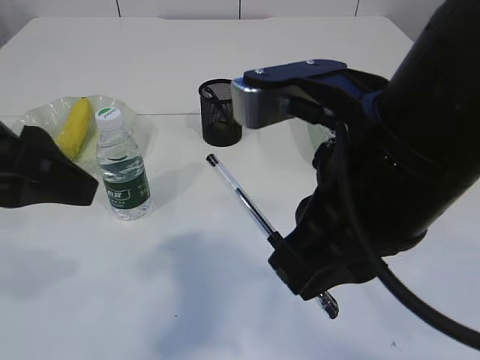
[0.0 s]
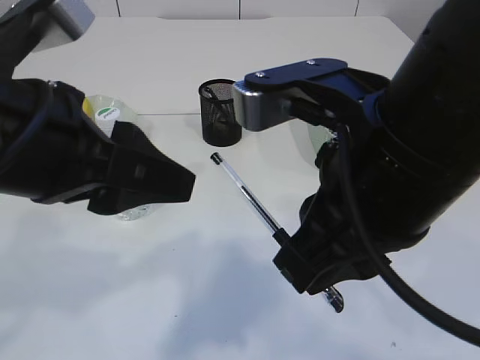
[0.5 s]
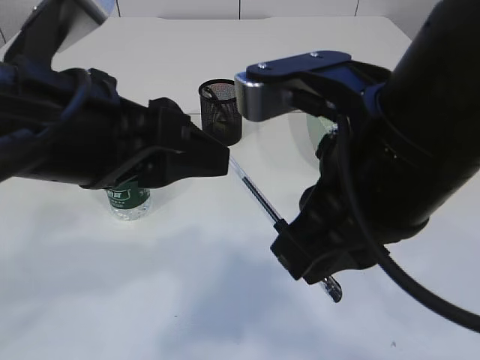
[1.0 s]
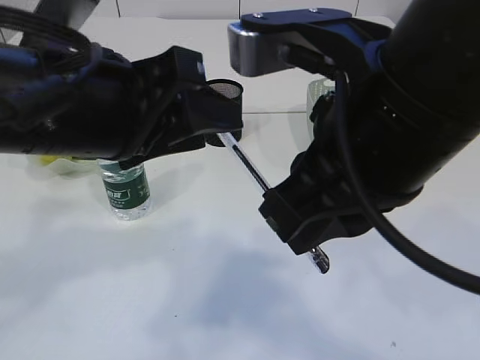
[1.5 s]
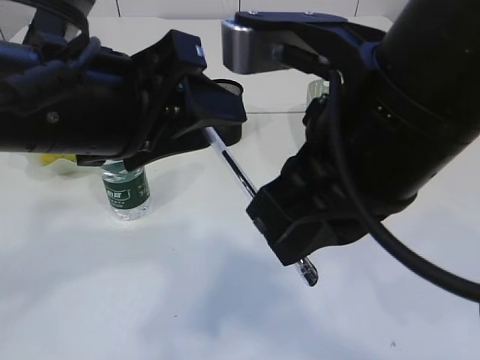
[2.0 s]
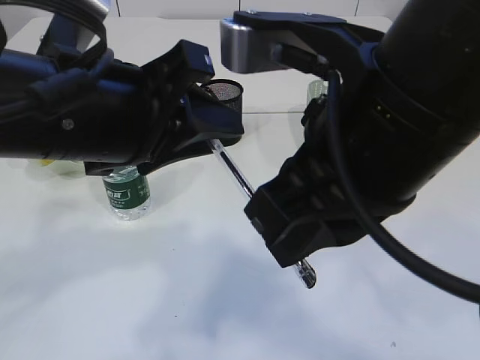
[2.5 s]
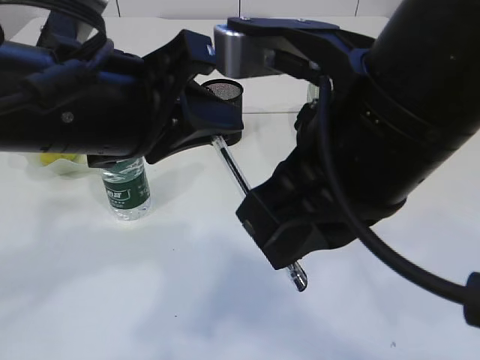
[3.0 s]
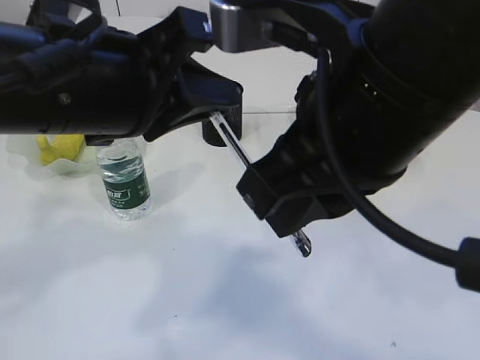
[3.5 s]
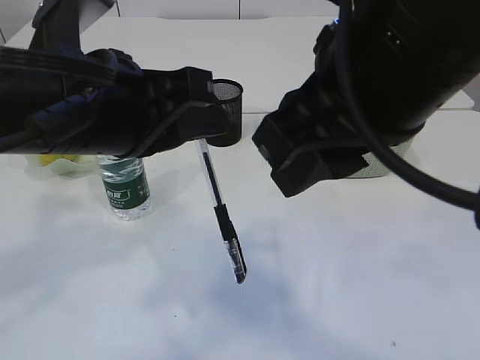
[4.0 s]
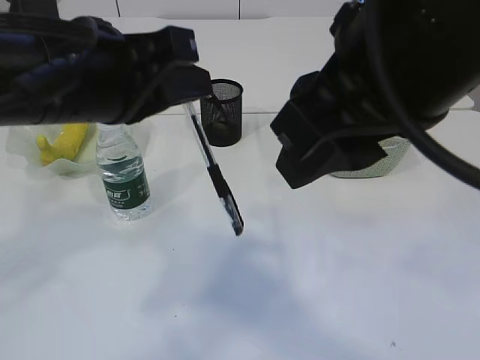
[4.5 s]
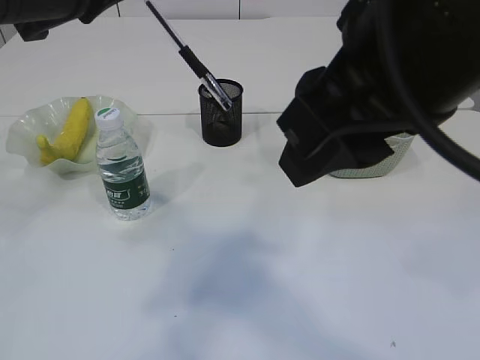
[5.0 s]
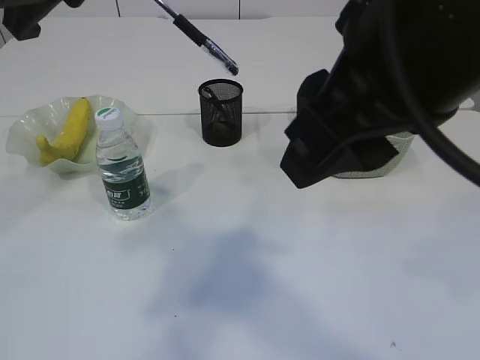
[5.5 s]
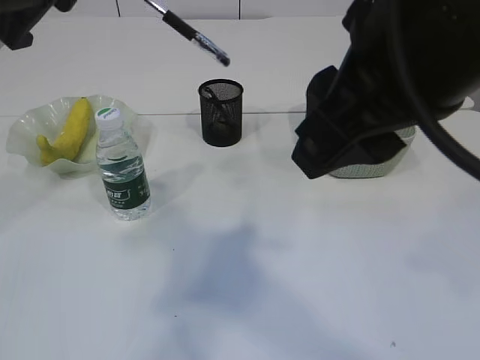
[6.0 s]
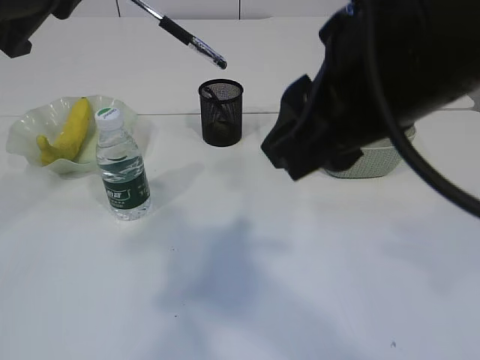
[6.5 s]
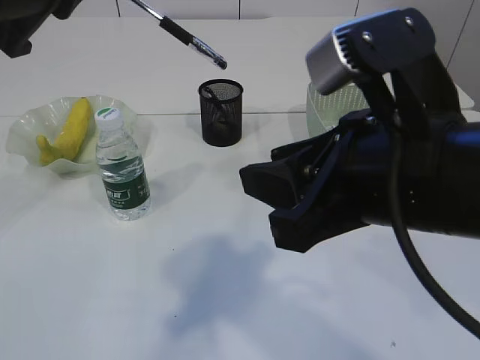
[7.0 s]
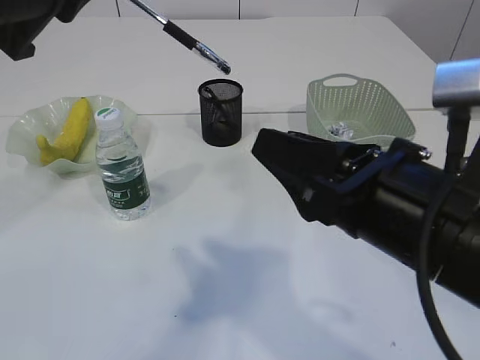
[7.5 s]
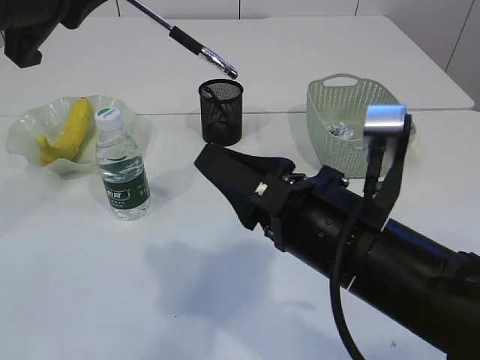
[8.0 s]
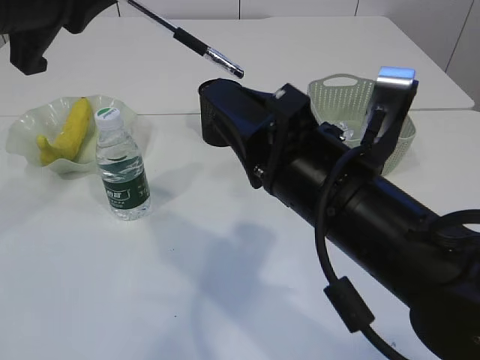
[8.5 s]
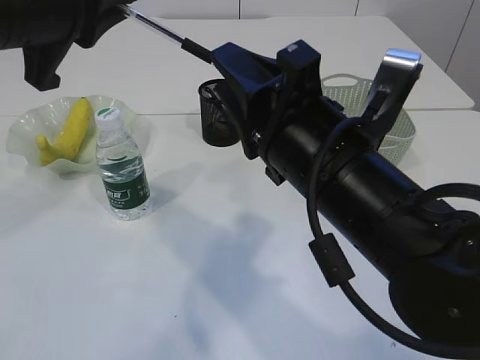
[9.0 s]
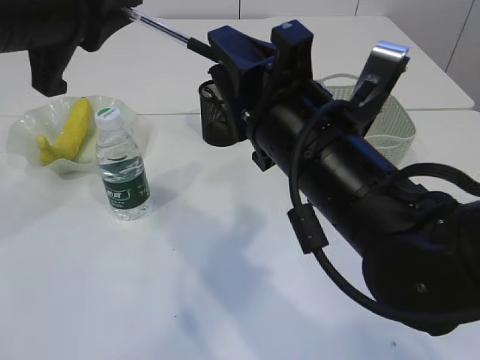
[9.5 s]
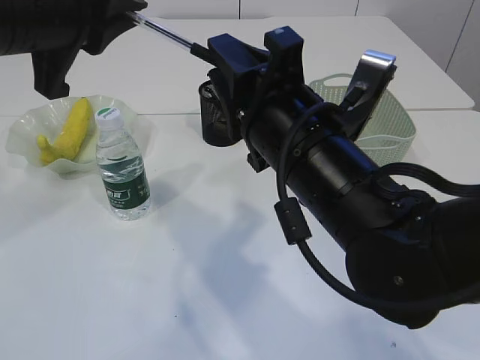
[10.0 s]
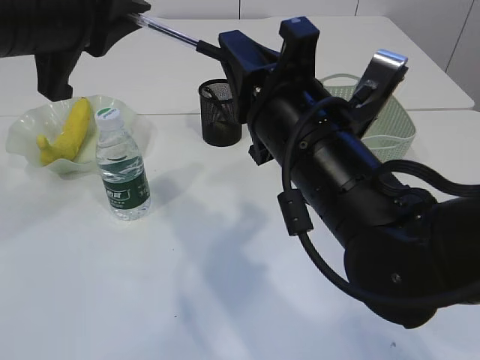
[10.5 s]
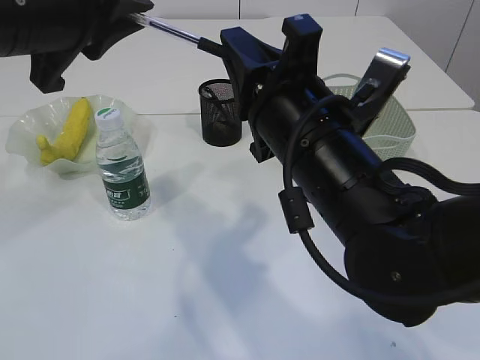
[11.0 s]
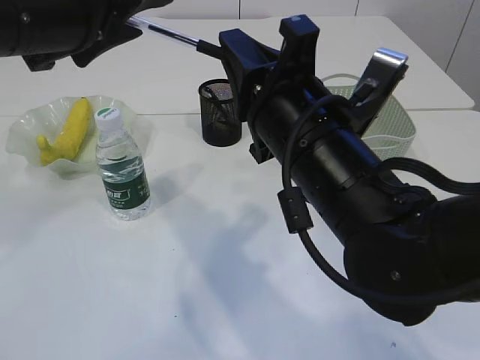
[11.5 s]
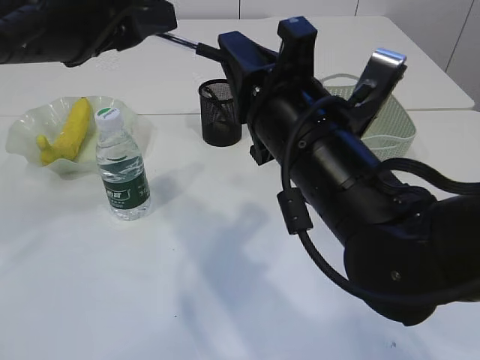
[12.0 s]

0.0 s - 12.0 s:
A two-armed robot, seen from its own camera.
Step, 0.0 s - 3.5 s: transfer the pen to the left arm.
0.0 s - 2.0 s: The left gripper is displaced to the right by approximately 10 cm.
2.0 s - 4.0 s: The left gripper closes up.
4.0 s - 6.0 s: The left gripper moves upward and to the left, about 10 cm.
6.0 s - 8.0 s: The right gripper goes about 20 cm downward.
8.0 s - 10.0 s: The right gripper shifts some 5 cm forward.
10.0 s - 12.0 s: The left gripper opens its fingers; the right gripper closes its fingers.

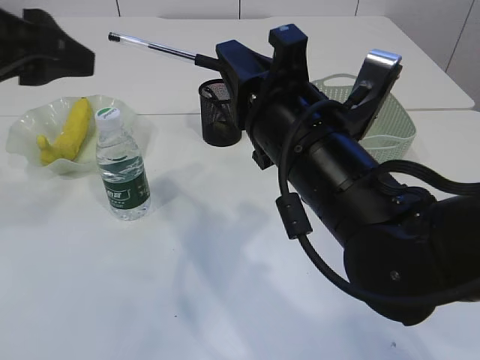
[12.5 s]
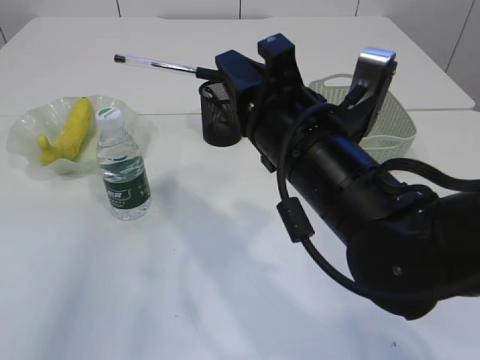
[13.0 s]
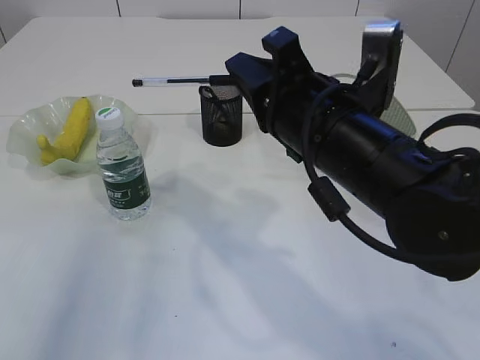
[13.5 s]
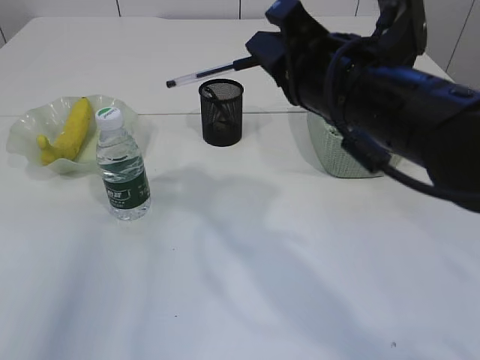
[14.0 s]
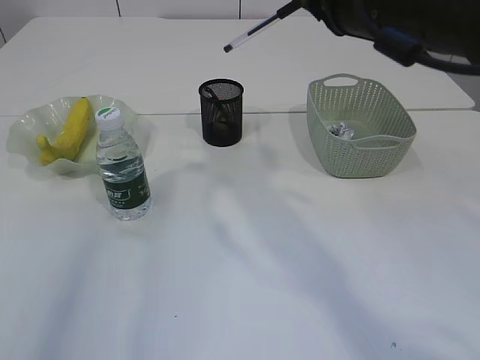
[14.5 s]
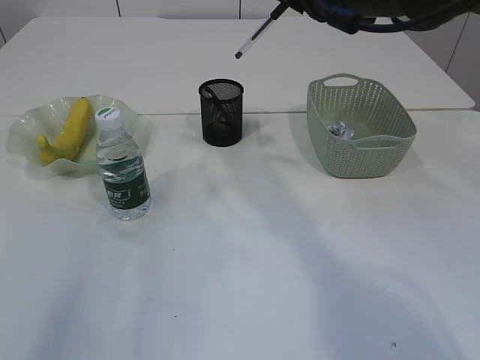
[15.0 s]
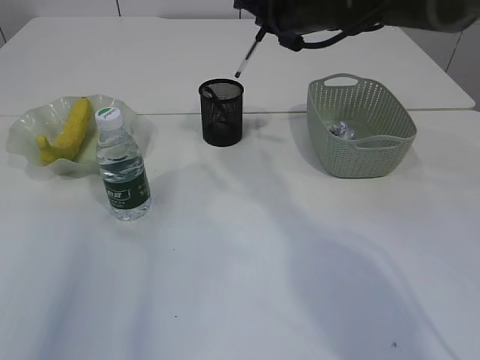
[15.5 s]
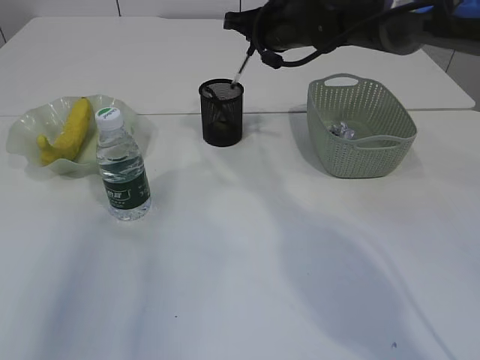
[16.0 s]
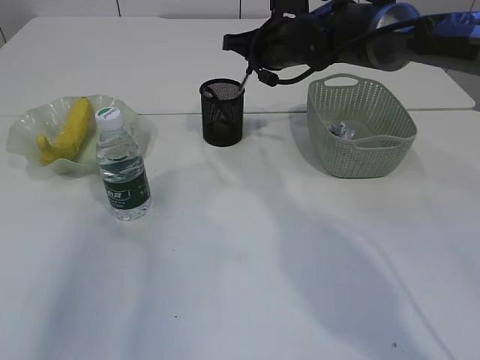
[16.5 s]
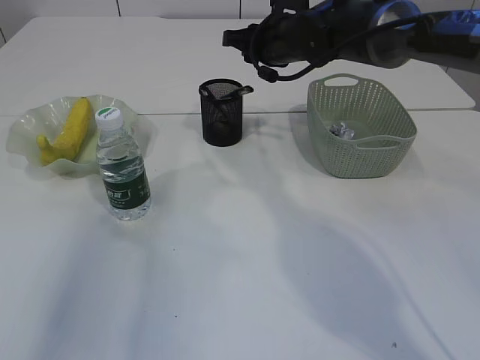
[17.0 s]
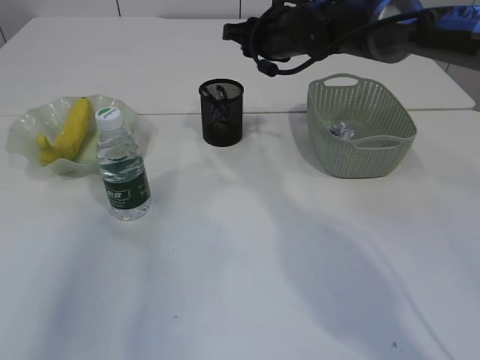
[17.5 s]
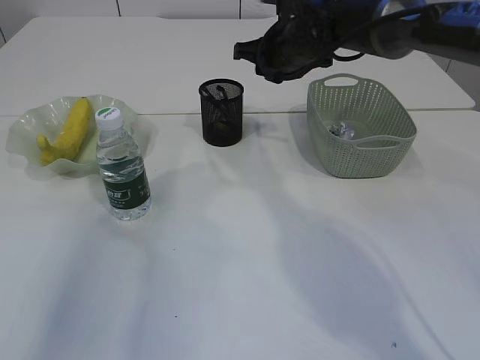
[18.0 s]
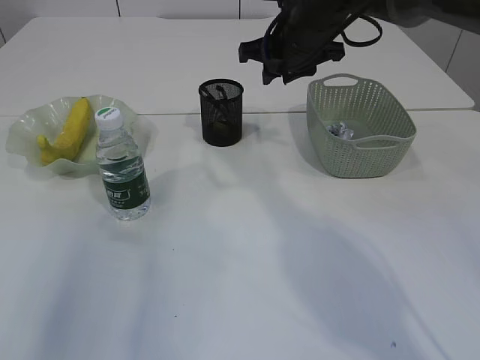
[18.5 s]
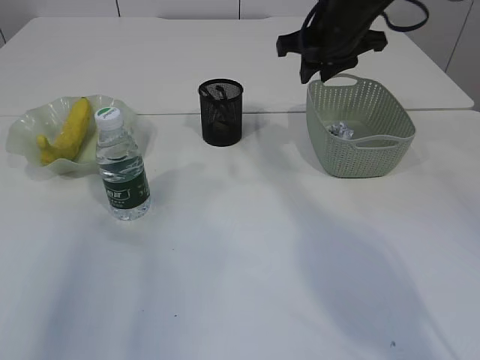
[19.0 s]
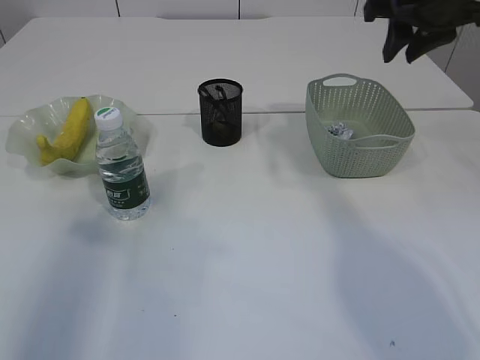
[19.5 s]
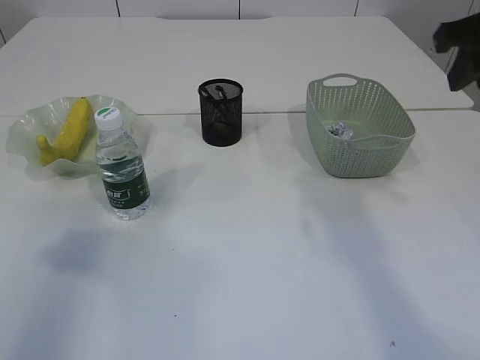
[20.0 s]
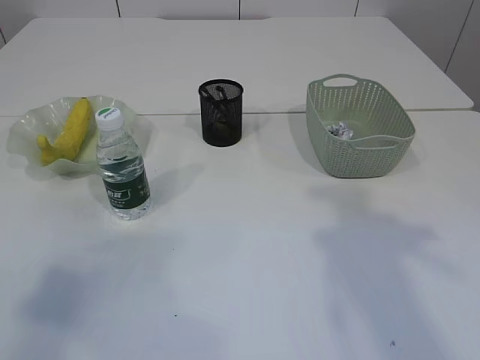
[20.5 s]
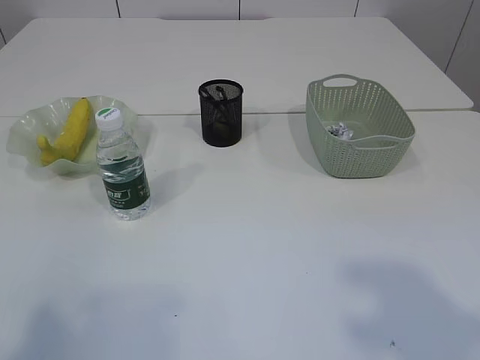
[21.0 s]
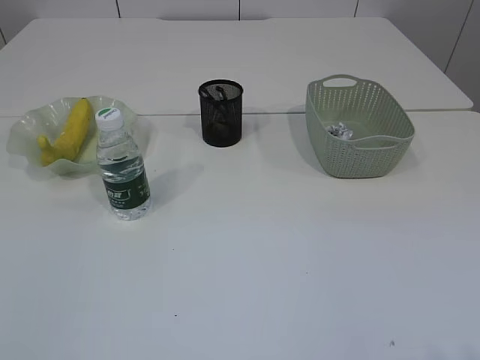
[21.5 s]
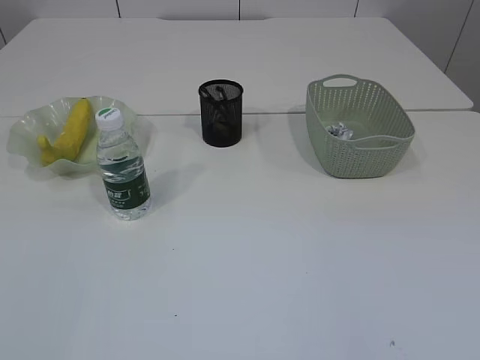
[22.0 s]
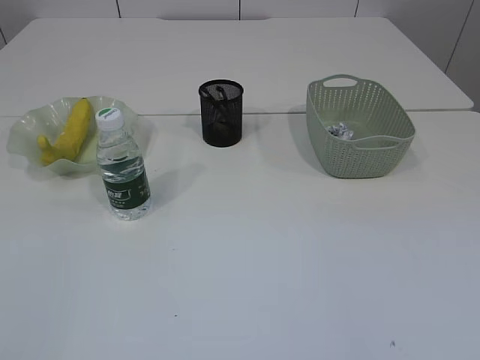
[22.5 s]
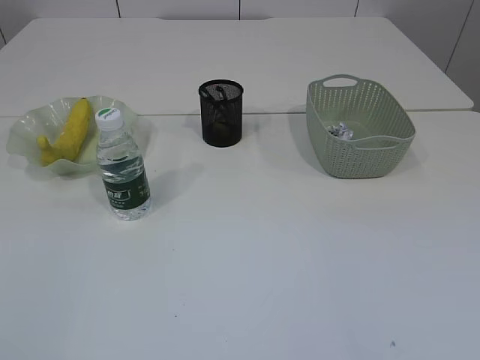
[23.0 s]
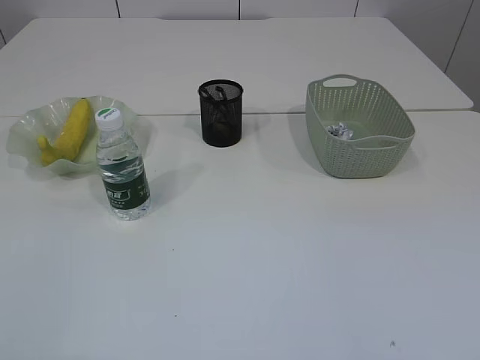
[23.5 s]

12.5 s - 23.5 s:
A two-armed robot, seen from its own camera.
Step, 12.5 s - 17.0 s: Place the pen into the pen holder.
12.5 s - 14.5 s: The right gripper is displaced upward, to the right and forward by approximately 15 cm. Meanwhile the left gripper is displaced to the left by roughly 5 cm.
14.5 s - 16.0 s: The right gripper travels forward and downward by about 20 cm.
16.0 s - 18.0 s: The right gripper opens its fingers.
18.0 s - 20.0 s: The left gripper goes some 5 cm to the left, while the right gripper moves backward, to the right and upward, some 25 cm.
20.0 s - 21.5 s: The right gripper shifts about 35 cm backward. The left gripper moves backward, some 20 cm.

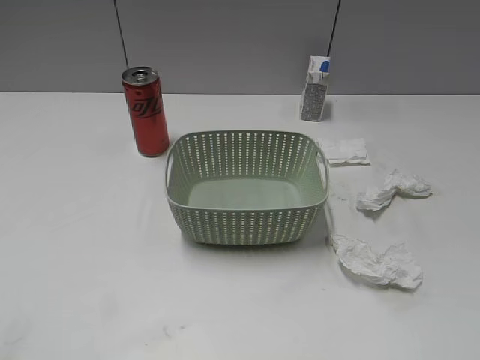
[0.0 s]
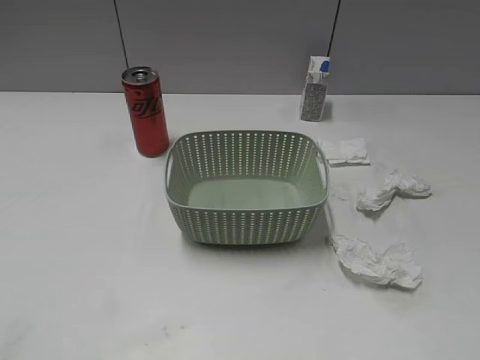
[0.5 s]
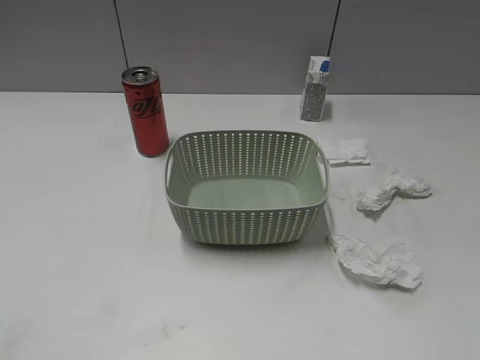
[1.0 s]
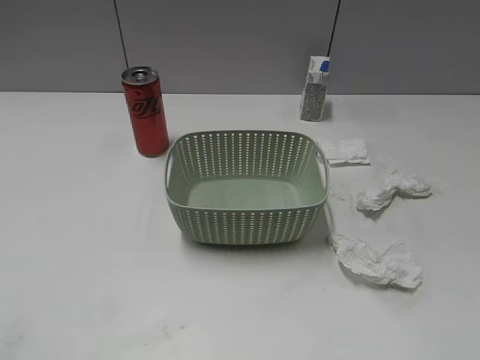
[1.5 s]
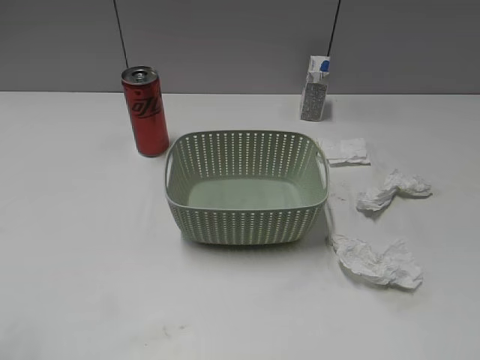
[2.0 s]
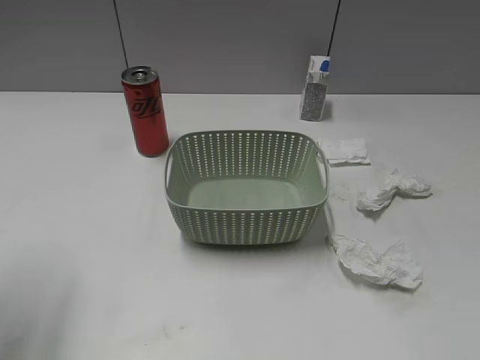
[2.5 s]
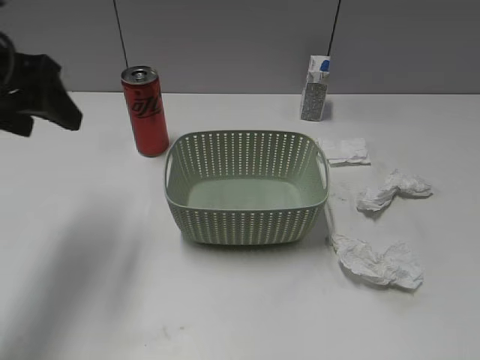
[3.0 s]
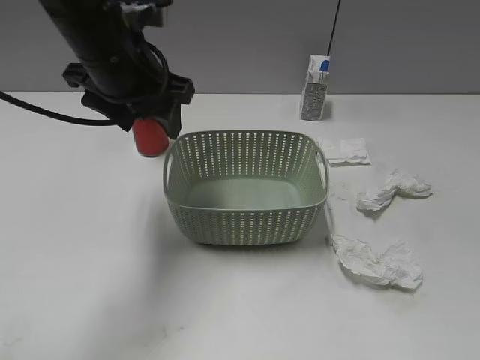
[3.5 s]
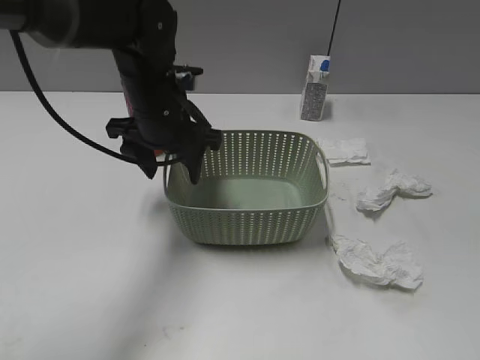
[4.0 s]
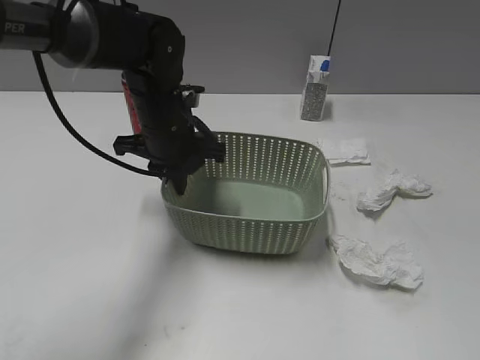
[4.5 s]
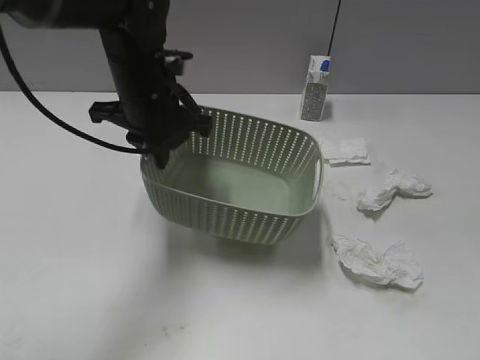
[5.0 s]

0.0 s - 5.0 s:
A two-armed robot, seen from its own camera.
Step, 1.5 s - 4.5 s: Grasp the basket with left gripper.
2.5 s - 5.0 s: The left gripper moves to the right, forward and downward, about 25 cm, and closes up.
